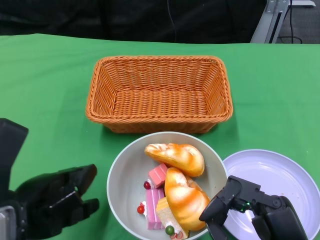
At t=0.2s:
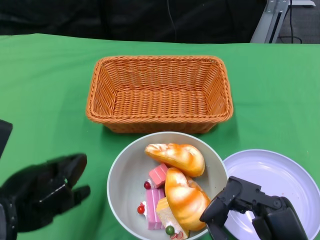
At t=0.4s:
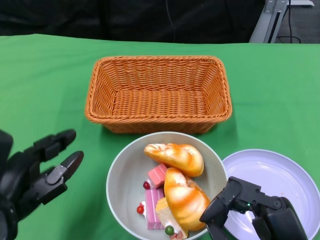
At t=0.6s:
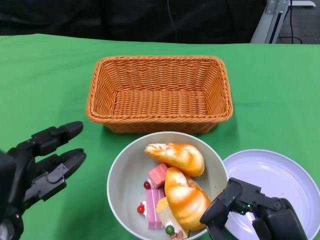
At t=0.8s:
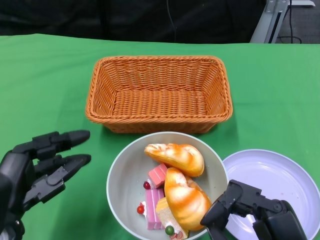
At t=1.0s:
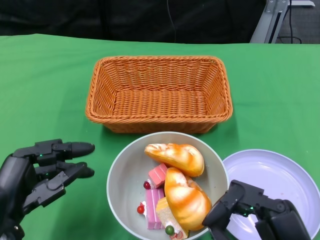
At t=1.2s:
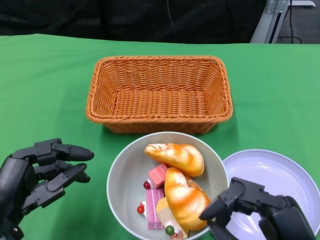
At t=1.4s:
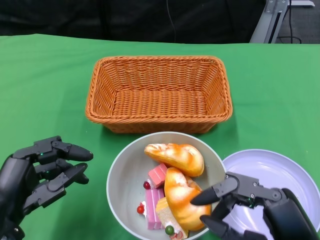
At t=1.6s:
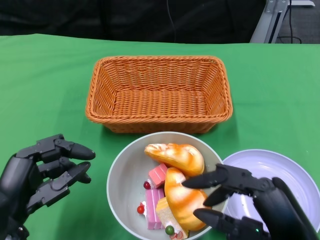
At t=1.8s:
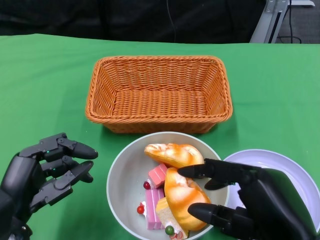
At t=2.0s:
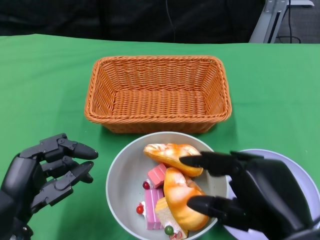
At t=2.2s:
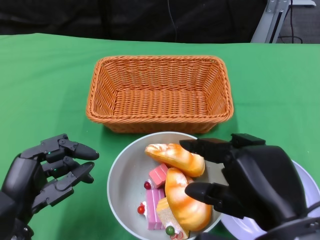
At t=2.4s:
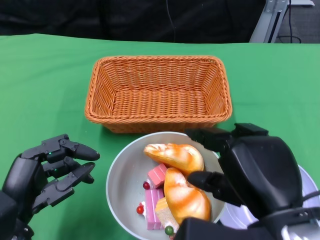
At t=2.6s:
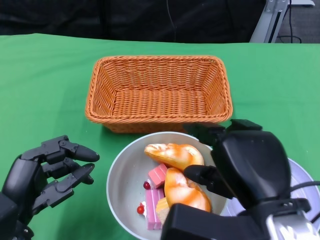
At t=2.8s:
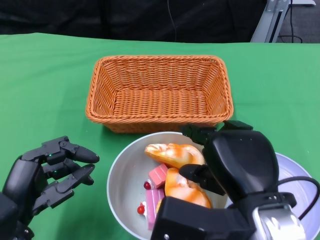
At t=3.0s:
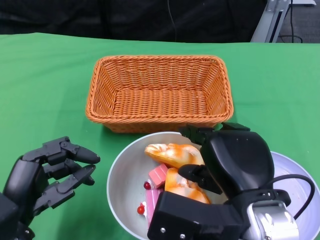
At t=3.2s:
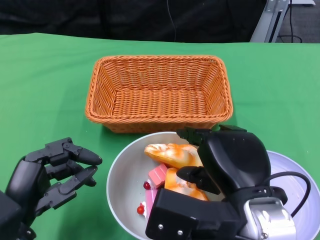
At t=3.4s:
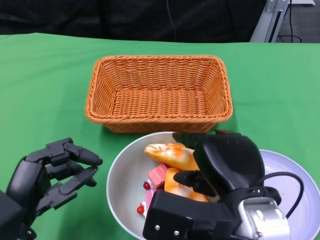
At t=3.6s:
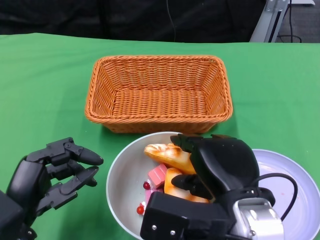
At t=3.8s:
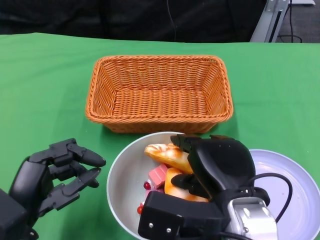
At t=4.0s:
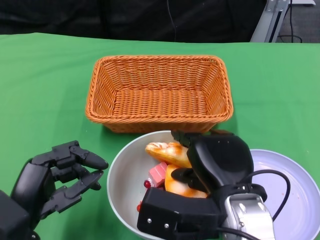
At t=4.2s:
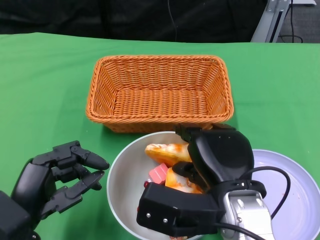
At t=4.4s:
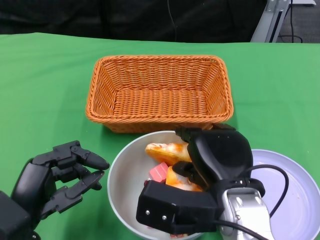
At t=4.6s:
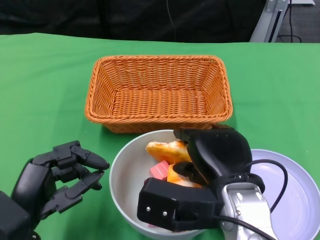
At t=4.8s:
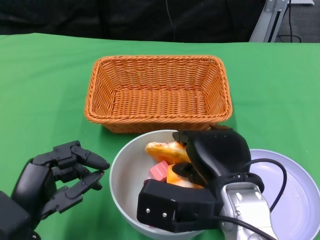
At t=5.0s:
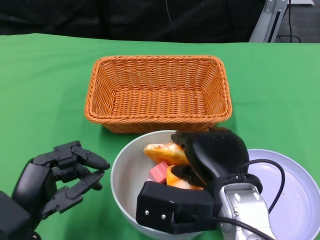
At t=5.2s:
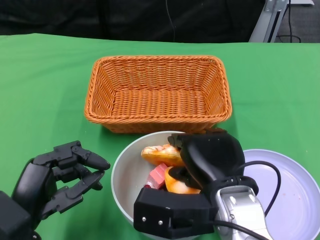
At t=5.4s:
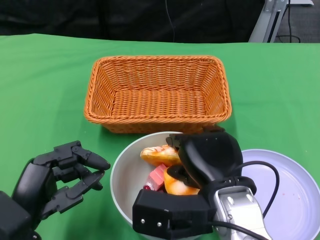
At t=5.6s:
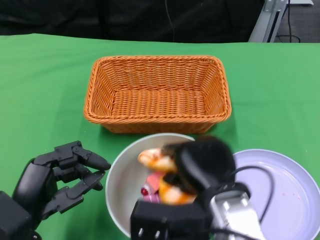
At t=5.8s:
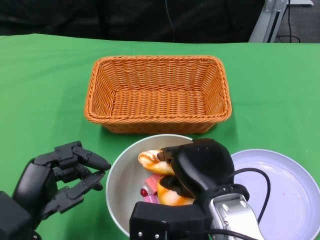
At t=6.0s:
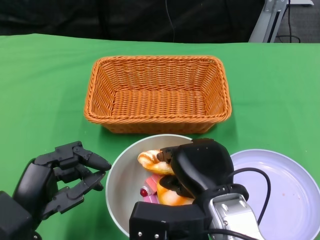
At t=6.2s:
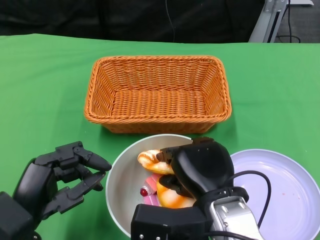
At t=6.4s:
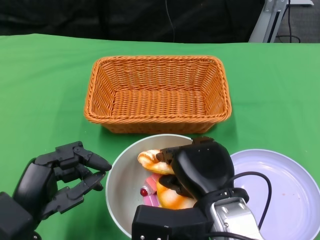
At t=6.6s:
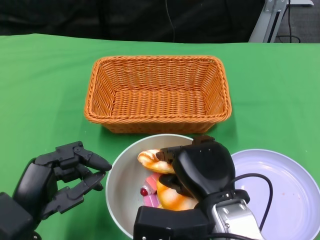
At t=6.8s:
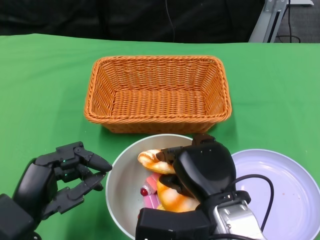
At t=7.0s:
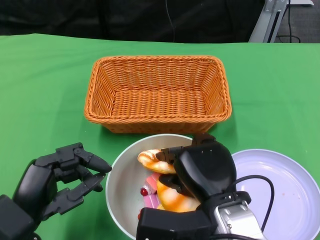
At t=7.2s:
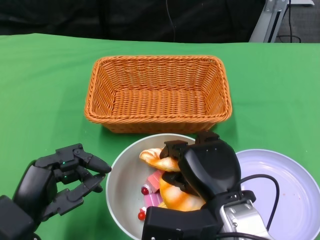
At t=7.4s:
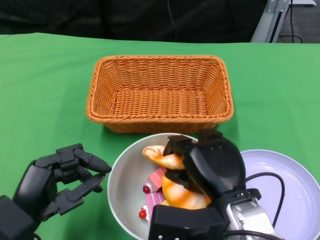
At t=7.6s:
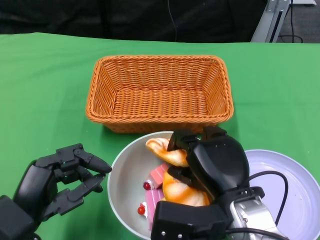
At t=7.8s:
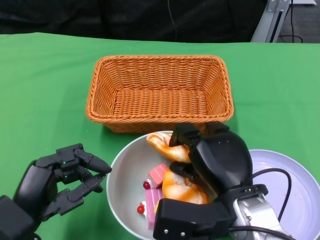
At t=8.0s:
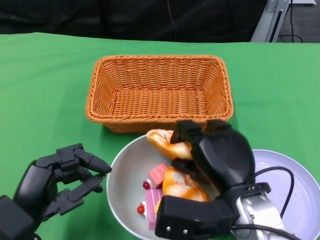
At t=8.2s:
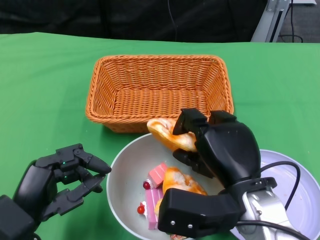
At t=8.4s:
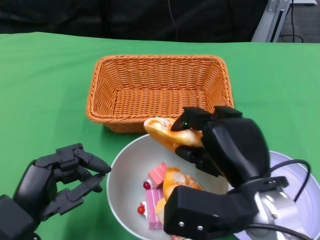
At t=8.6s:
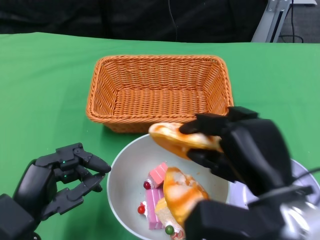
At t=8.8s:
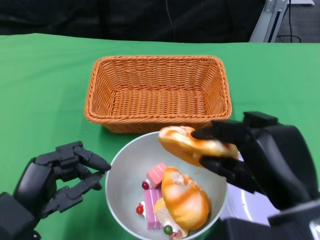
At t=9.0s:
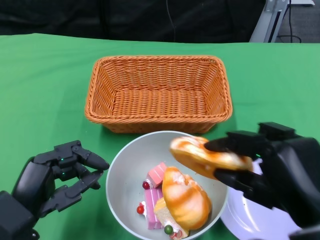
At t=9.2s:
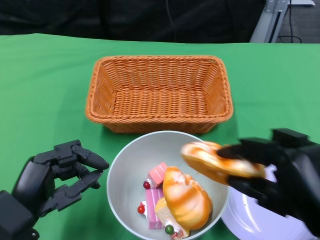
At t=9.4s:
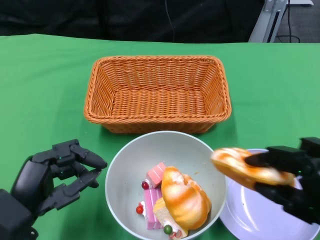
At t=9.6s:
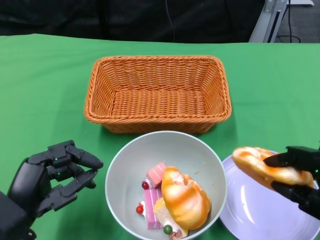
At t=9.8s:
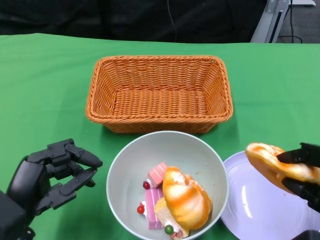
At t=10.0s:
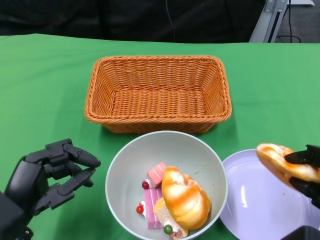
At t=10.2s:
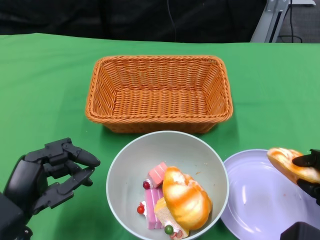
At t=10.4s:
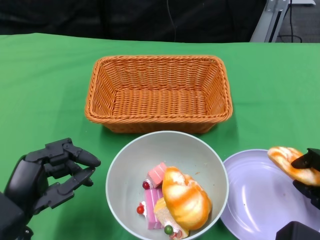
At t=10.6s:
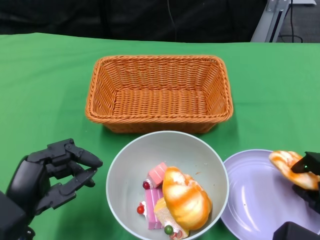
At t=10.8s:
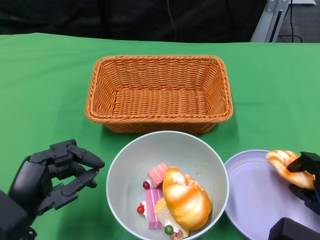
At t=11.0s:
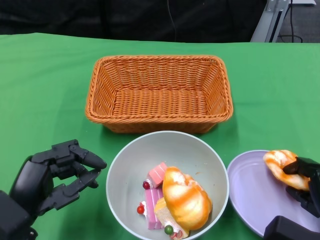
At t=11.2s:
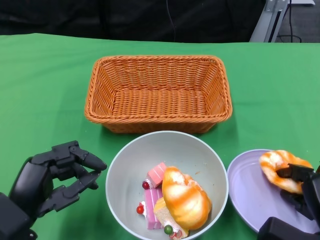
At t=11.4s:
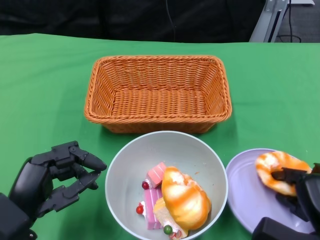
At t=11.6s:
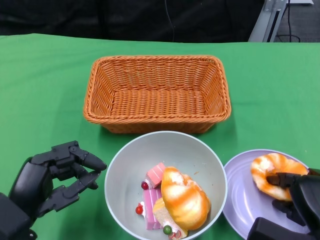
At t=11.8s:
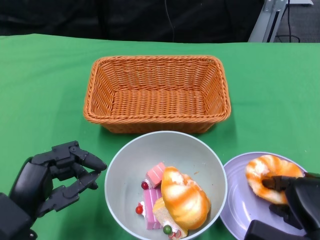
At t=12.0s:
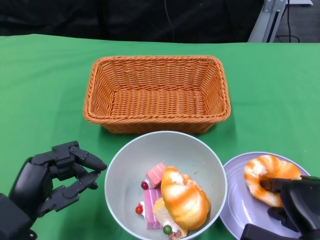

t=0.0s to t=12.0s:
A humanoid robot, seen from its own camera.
t=0.0s to t=1.6s: The left hand heads downward, covering roughly 5 cm.
t=1.6s to t=3.0s: The right hand heads to the left and forward, covering roughly 10 cm.
t=4.4s to t=7.6s: There are only small adjustments of the hands.
t=7.6s to t=9.0s: The right hand heads to the right, backward and upward, covering roughly 15 cm.
t=9.0s to t=10.4s: The right hand shifts some 15 cm downward and to the right.

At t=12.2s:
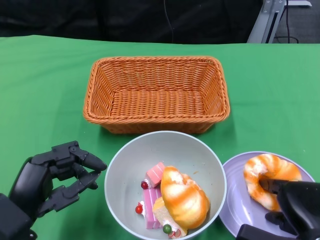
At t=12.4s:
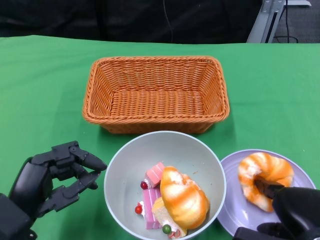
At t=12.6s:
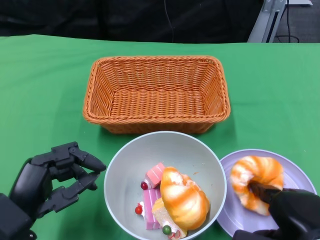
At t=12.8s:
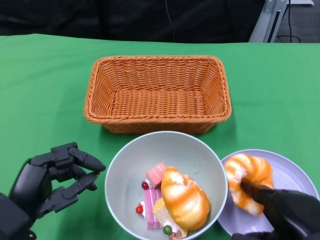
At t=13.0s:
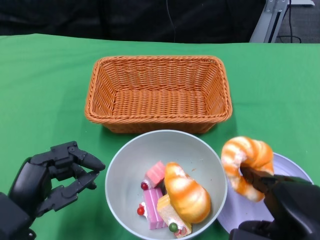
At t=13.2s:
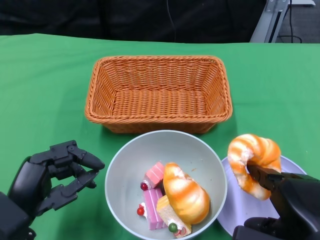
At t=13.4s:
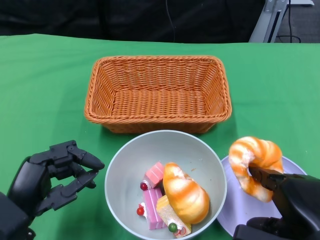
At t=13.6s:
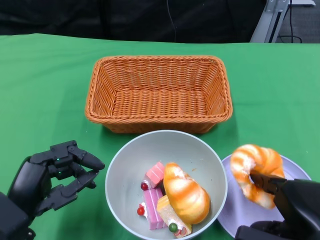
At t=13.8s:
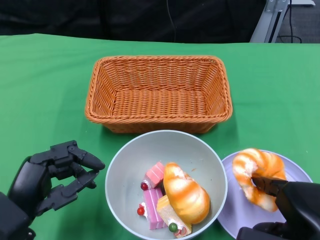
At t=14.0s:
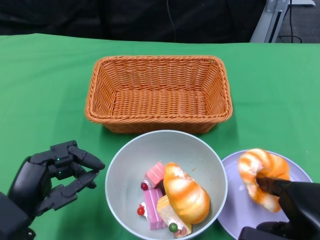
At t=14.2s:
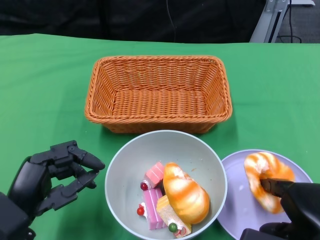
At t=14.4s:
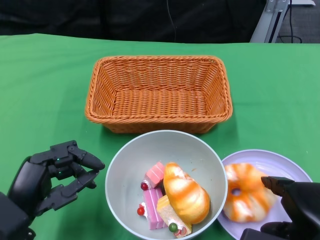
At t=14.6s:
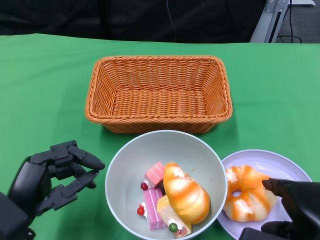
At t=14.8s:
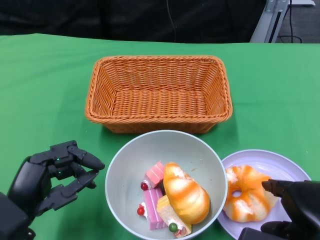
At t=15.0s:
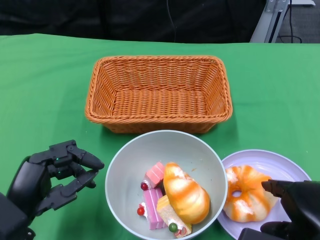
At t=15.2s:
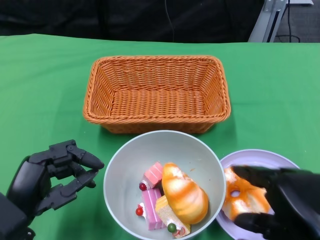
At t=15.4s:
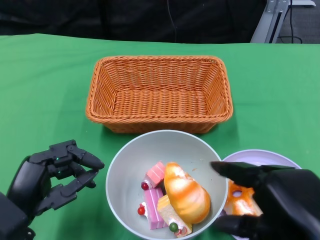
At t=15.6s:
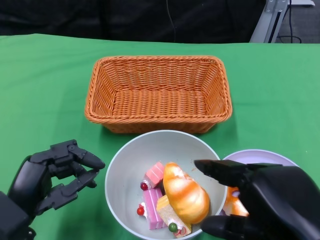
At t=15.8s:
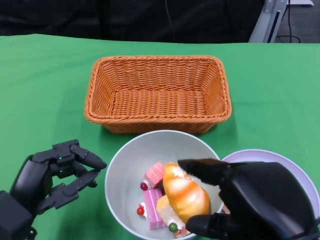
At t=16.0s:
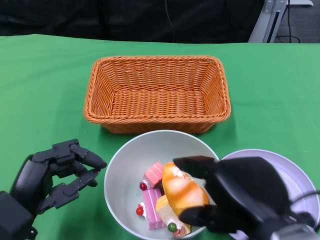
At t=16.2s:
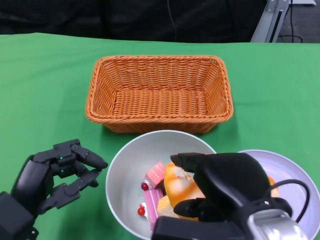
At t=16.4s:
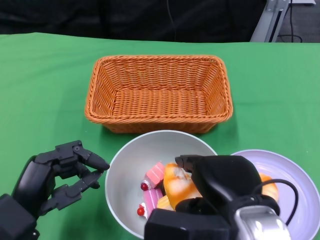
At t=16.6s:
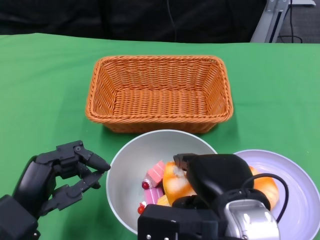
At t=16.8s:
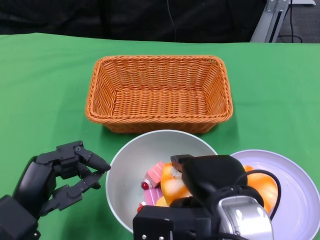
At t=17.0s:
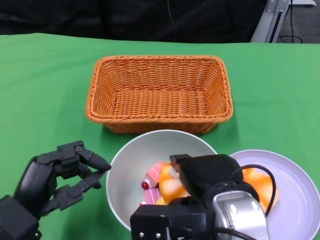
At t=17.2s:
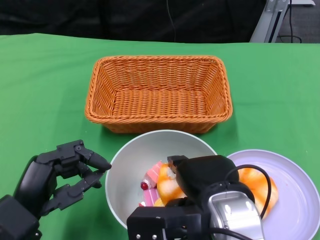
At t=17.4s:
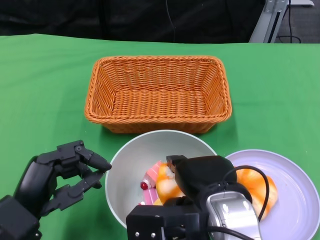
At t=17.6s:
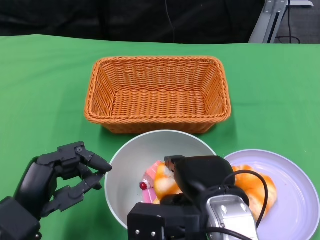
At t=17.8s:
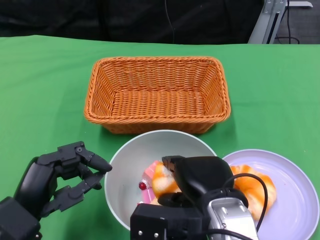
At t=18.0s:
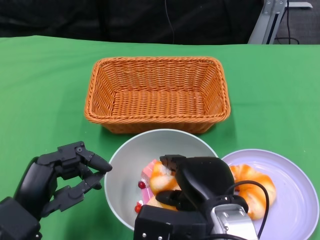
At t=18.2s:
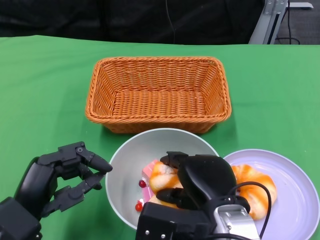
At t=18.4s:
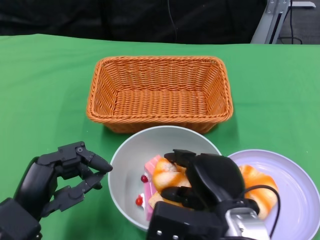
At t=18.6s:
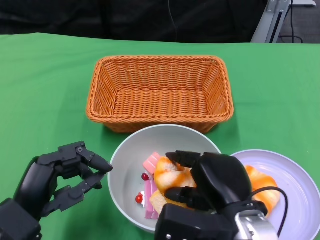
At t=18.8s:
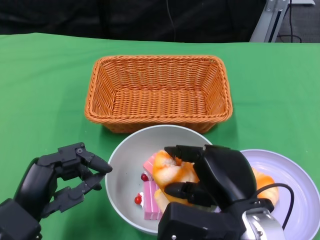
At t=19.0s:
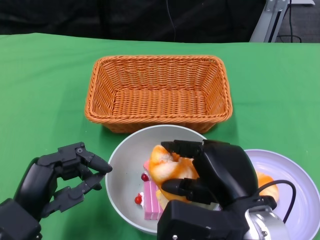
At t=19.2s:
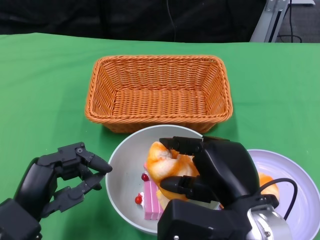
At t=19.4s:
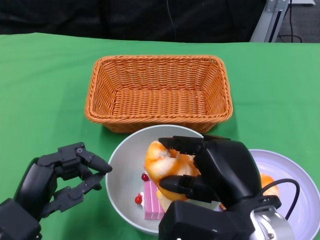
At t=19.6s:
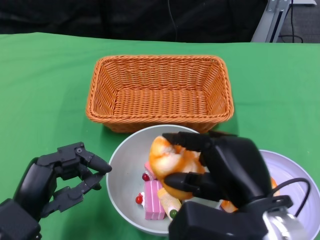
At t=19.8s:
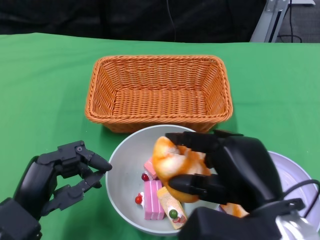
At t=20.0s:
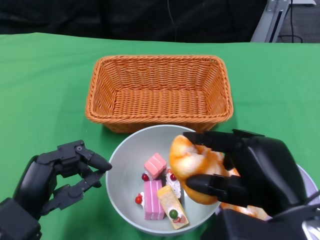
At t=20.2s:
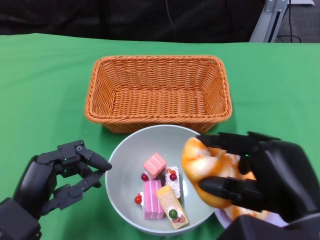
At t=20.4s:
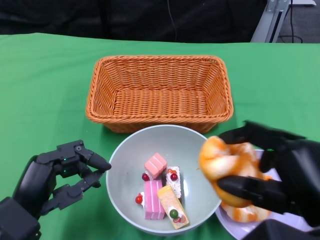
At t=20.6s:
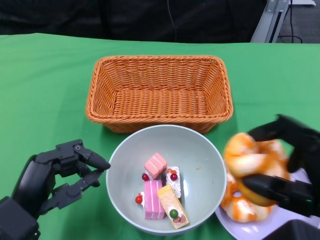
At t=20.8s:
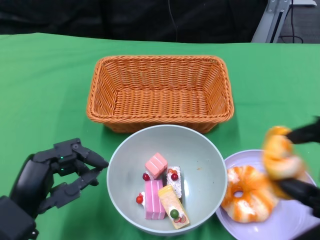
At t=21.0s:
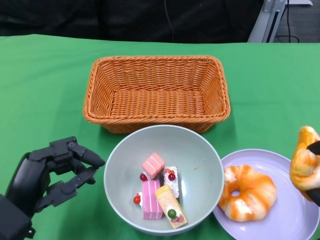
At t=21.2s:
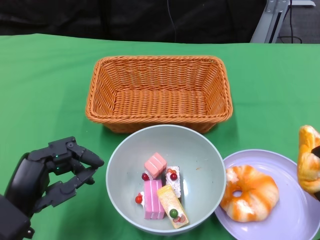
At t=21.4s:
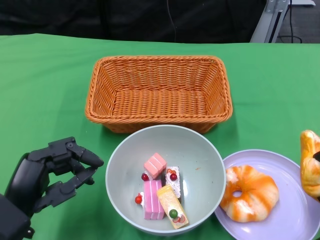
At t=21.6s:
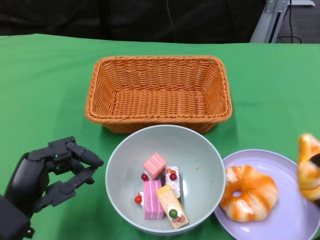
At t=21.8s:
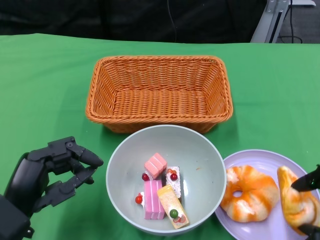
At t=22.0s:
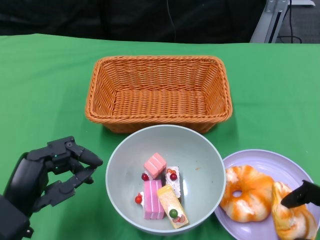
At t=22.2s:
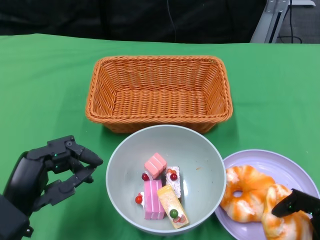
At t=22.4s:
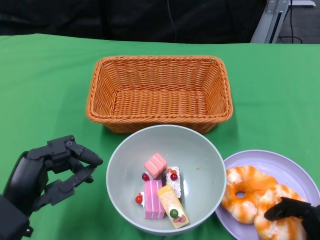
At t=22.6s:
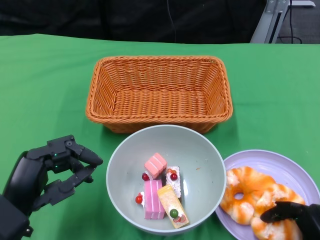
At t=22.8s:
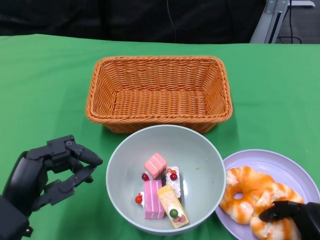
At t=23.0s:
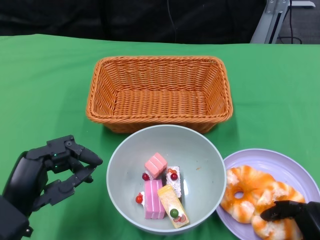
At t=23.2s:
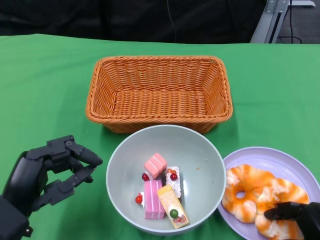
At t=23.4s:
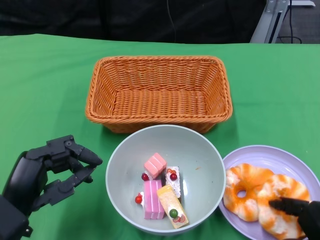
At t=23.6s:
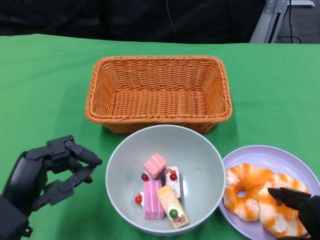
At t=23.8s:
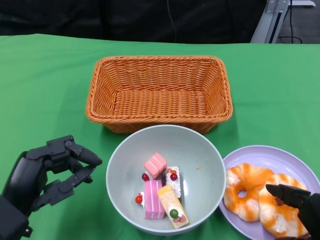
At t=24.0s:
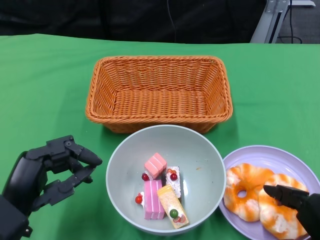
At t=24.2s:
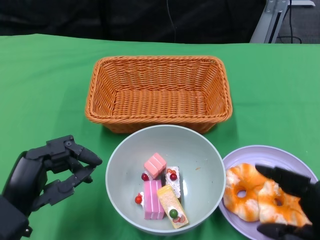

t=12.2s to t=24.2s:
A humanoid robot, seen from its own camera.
t=12.2s to t=13.8s: The right hand moves upward, approximately 5 cm.
t=13.8s to t=15.2s: There are only small adjustments of the hands.
t=15.2s to t=16.6s: The right hand goes approximately 10 cm to the left and forward.
t=16.6s to t=18.2s: The right hand shifts roughly 5 cm downward.
t=18.2s to t=19.8s: The right hand shifts roughly 10 cm upward and to the right.
t=19.8s to t=21.2s: The right hand goes about 15 cm to the right and backward.
t=21.2s to t=22.6s: The right hand is displaced downward by roughly 10 cm.
t=22.6s to t=24.2s: The right hand goes some 10 cm upward.
